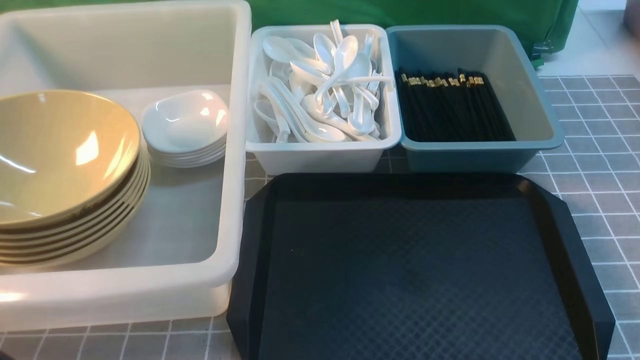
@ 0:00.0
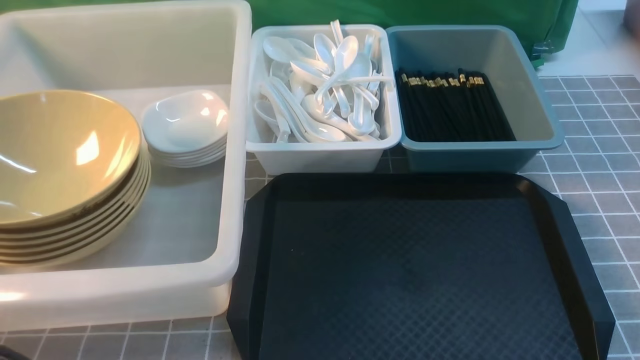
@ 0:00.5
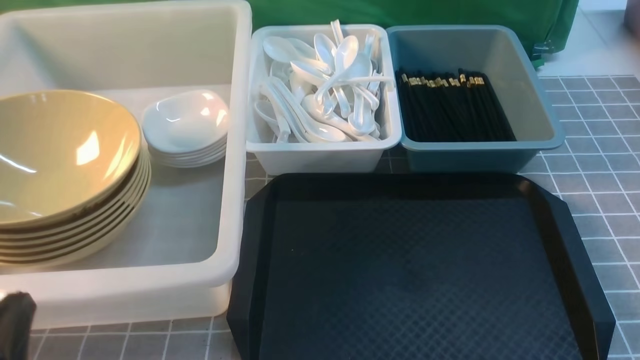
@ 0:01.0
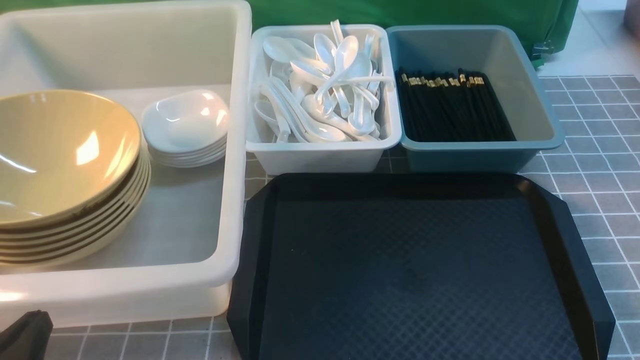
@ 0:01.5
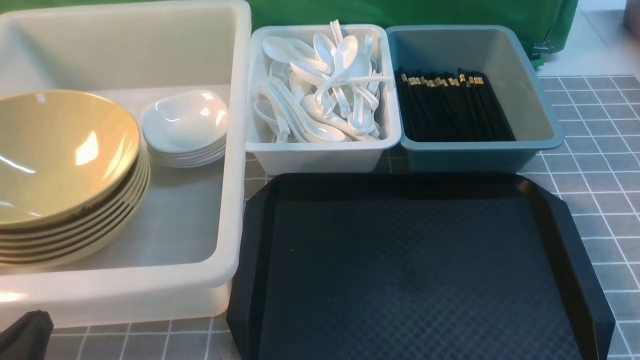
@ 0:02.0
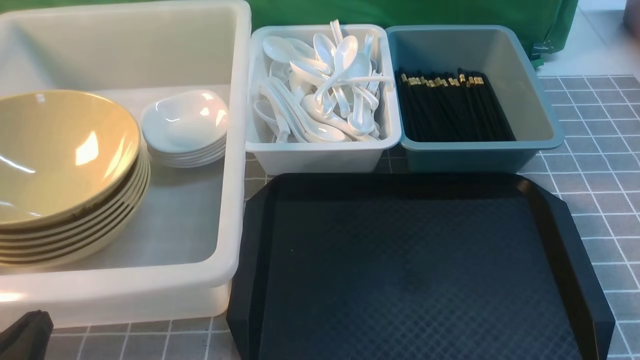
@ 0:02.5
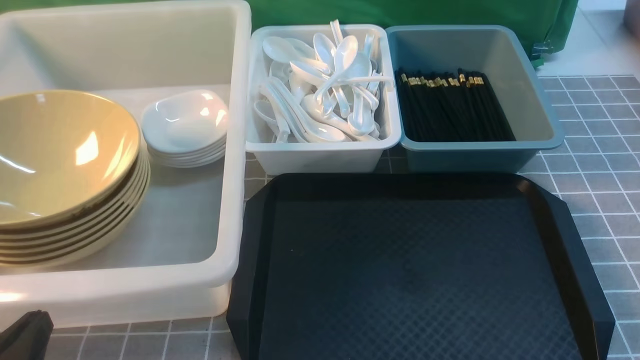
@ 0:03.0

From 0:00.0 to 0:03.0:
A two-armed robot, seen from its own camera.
Task of the whole recording: on grey table put chopsticks spoon bowls plates into blue grey white boxes.
From 0:00.0 to 0:01.5: The left gripper heads downward, covering roughly 15 cm.
From 0:01.5 to 0:03.0: The two grippers keep their place.
